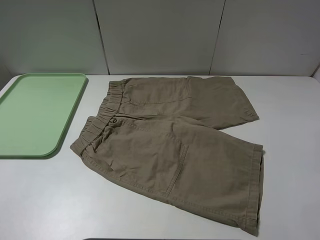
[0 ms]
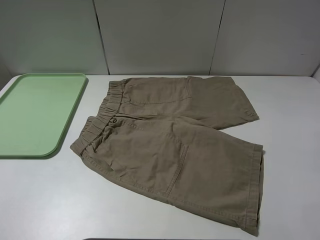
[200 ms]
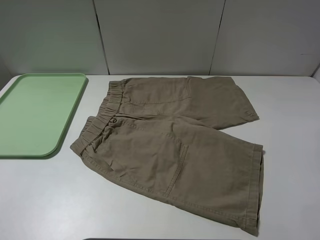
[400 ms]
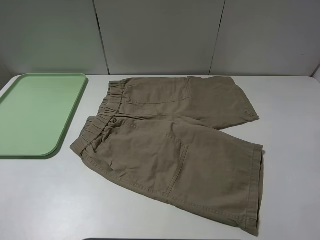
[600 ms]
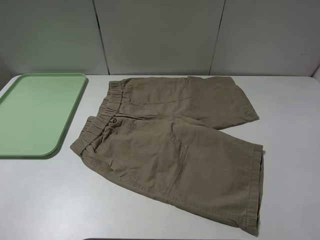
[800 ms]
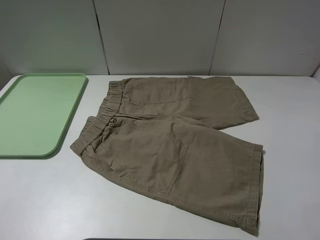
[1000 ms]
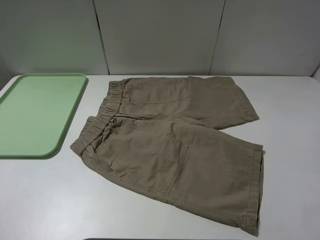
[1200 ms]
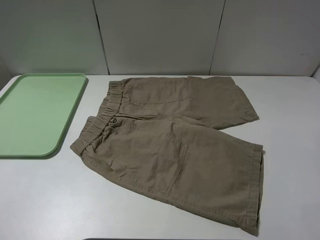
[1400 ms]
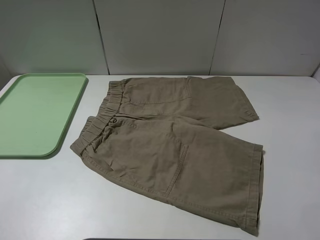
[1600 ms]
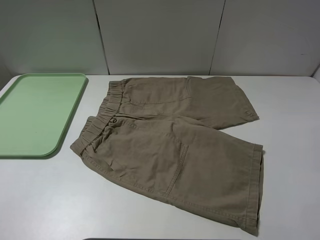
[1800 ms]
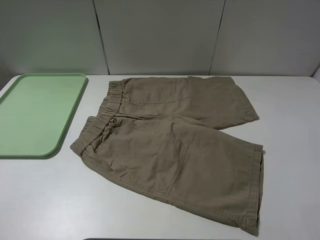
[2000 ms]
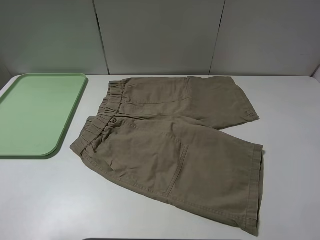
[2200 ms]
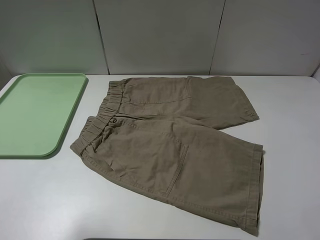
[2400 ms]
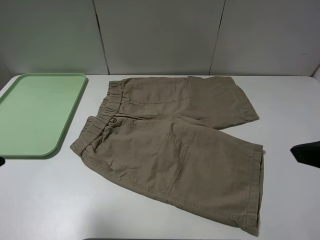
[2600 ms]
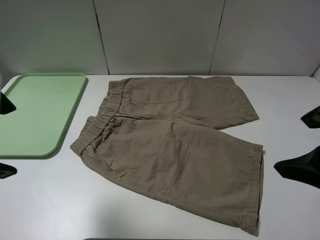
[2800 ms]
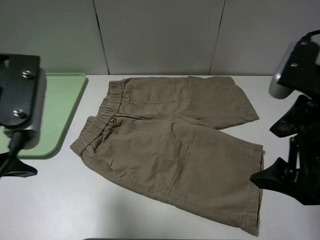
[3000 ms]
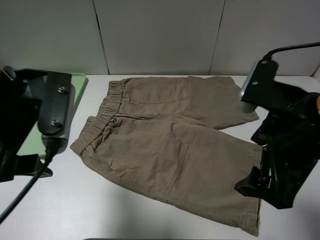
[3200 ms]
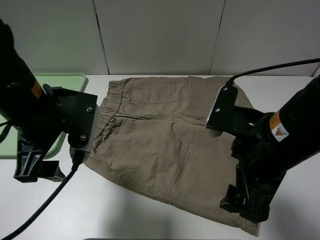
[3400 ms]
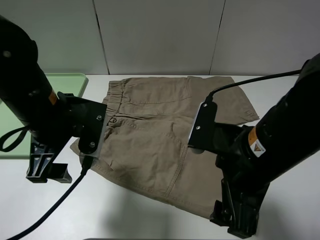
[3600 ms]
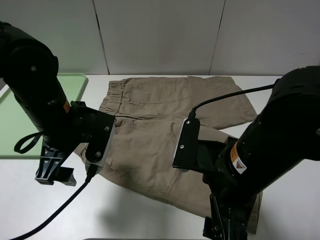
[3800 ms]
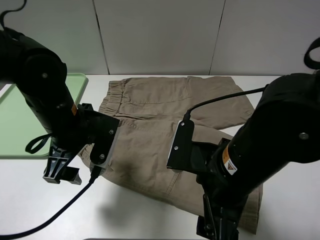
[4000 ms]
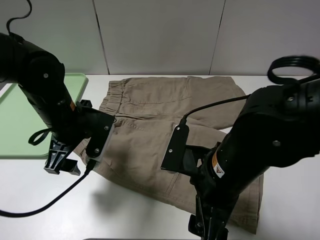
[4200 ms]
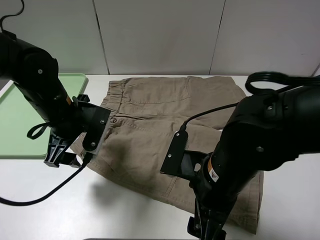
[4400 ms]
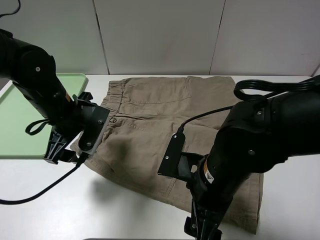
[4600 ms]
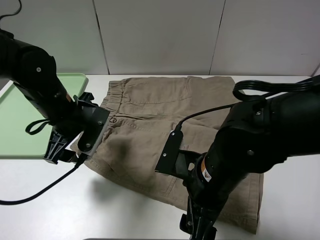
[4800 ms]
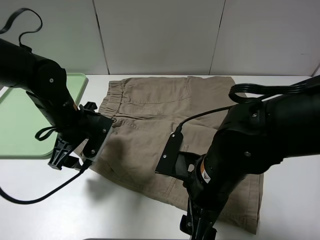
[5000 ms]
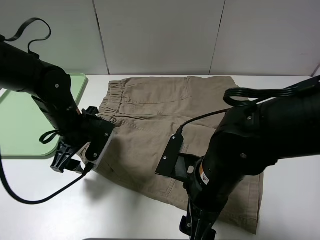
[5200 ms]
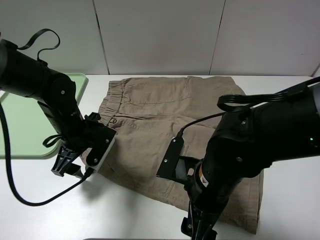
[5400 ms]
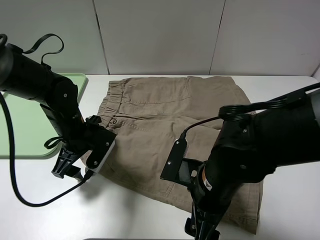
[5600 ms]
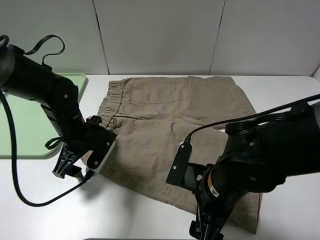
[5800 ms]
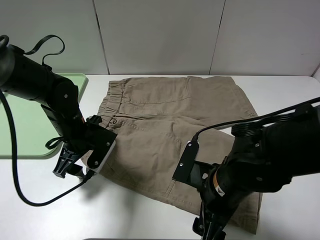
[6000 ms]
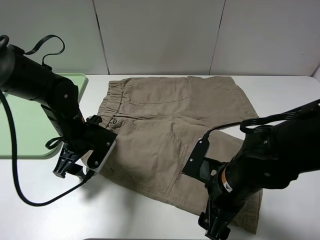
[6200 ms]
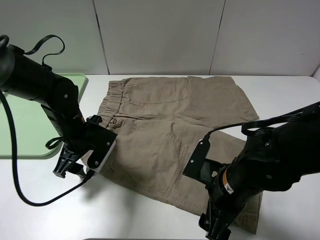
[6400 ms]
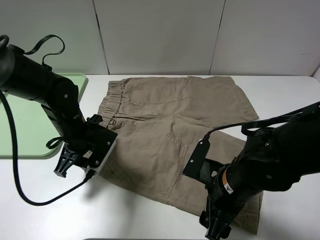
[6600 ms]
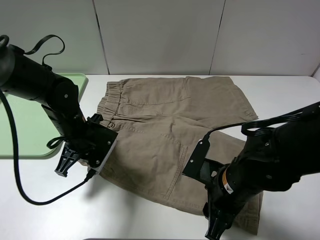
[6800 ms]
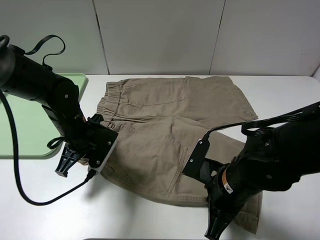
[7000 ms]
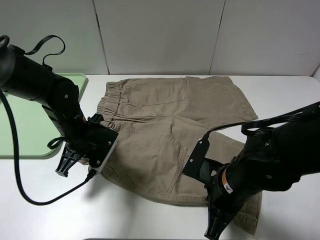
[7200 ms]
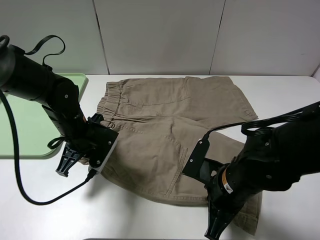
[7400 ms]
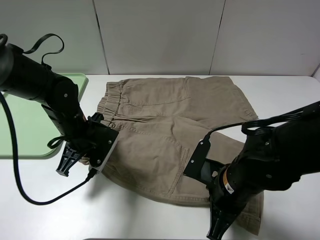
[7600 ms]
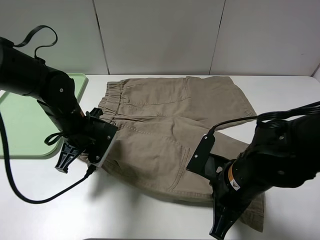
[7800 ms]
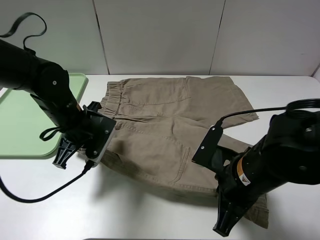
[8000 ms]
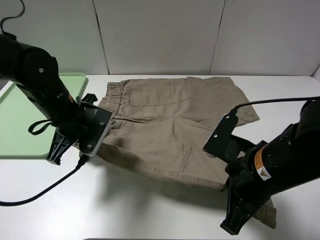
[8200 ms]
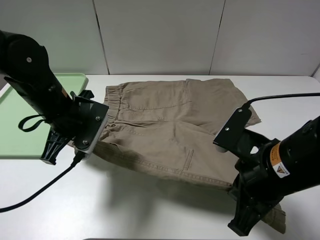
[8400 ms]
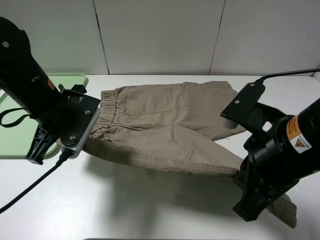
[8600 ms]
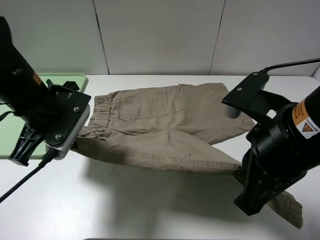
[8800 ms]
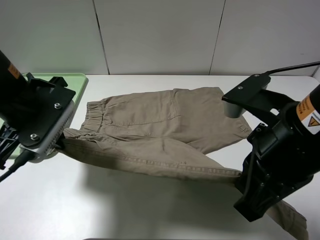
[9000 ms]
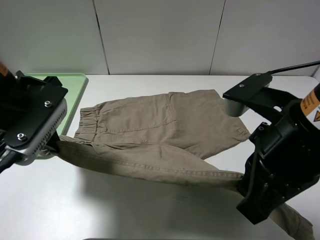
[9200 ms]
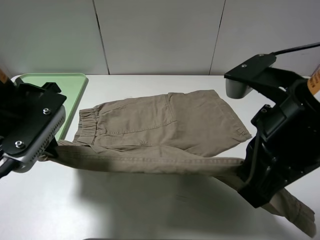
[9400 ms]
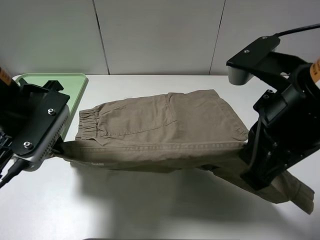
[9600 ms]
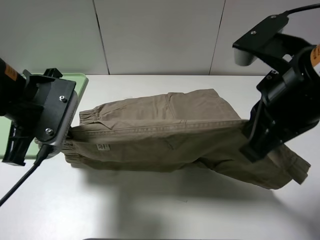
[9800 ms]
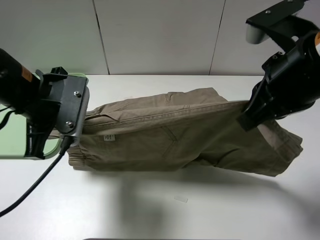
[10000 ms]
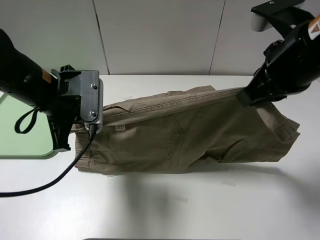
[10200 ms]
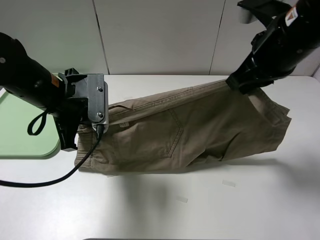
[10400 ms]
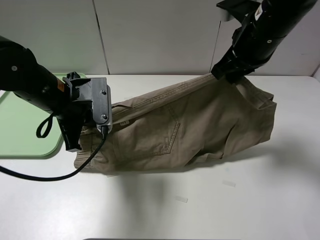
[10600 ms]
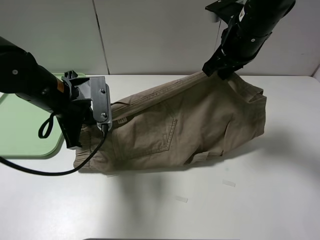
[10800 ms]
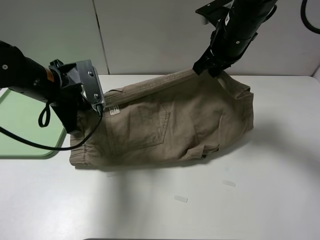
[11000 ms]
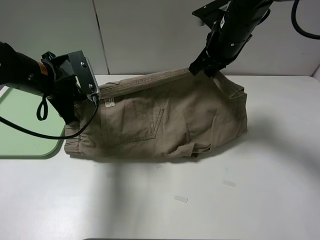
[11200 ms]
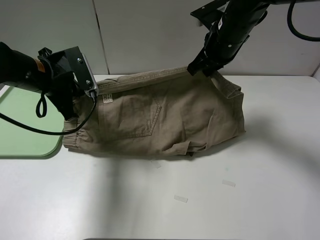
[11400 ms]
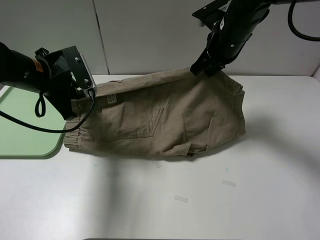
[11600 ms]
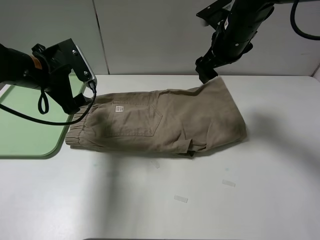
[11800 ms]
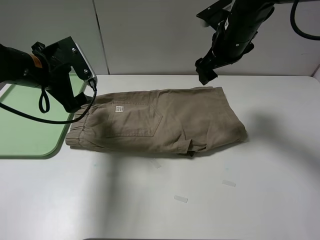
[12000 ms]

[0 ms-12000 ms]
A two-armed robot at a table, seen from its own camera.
Task of the whole recording: fold the khaki jeans in half with two grippers, then fold them in half again, and use the left claw to place the folded fold khaki jeans on the tray.
Step, 0 ms to 7200 ms: Grasp the khaki trousers with the left gripper.
Step, 7400 ms to 11600 ms: Fold the khaki trousers upwards with the left gripper.
0 ms to 1600 ms: The two grippers keep their place.
1600 ms to 3000 ms: The left gripper goes roughly 20 cm forward and to the right. Meanwhile the right gripper shifts approximately 15 cm forward and to the left.
3000 ms to 4400 ms: The left gripper shifts some 15 cm downward and forward. The right gripper moves downward and to the left, some 15 cm.
4400 ms to 6000 ms: The left gripper heads downward, covering about 5 cm. Meanwhile the right gripper moves approximately 5 cm.
6000 ms to 7600 ms: The right gripper closes; the left gripper closes its fingers.
7600 ms to 9000 ms: The left gripper travels upward and backward by approximately 15 cm, while the right gripper travels upward by about 15 cm.
9000 ms to 10400 ms: The left gripper ends up some 5 cm from where it was, while the right gripper shifts about 15 cm forward.
10400 ms to 12000 ms: The right gripper moves forward, roughly 10 cm, and opens its fingers, while the left gripper goes some 5 cm forward, and opens its fingers.

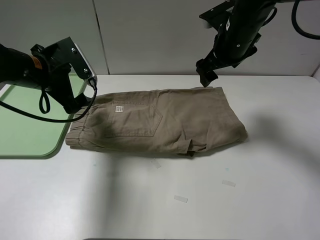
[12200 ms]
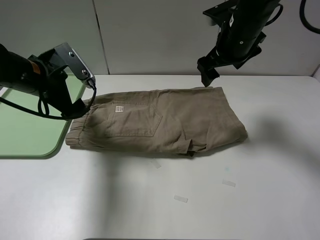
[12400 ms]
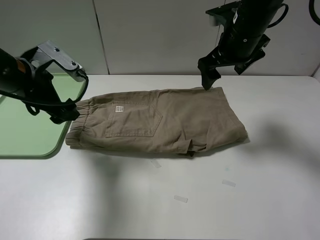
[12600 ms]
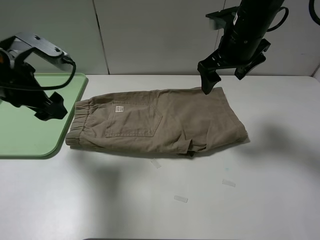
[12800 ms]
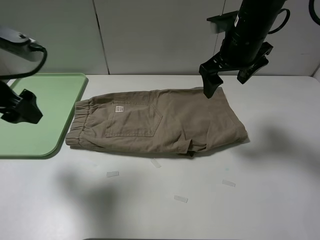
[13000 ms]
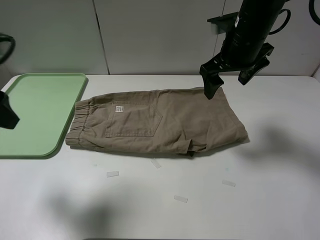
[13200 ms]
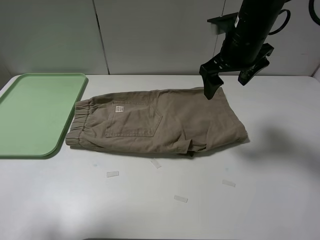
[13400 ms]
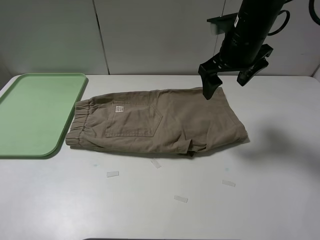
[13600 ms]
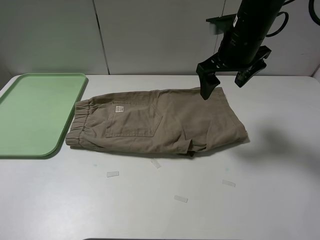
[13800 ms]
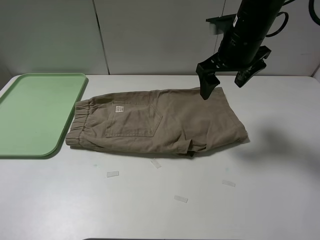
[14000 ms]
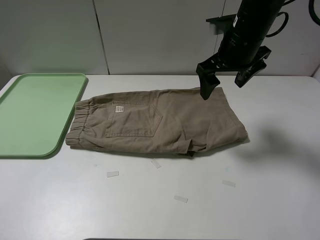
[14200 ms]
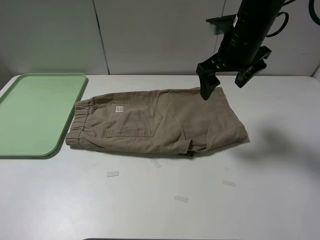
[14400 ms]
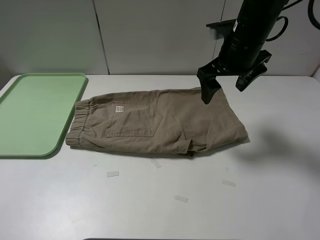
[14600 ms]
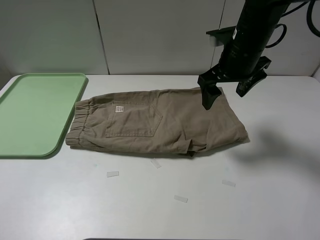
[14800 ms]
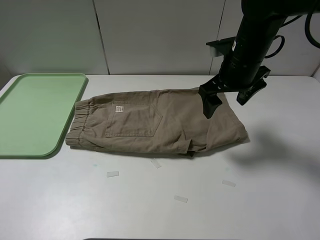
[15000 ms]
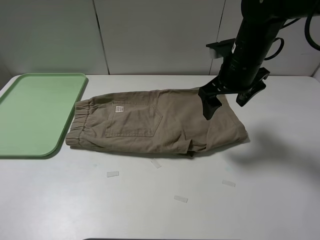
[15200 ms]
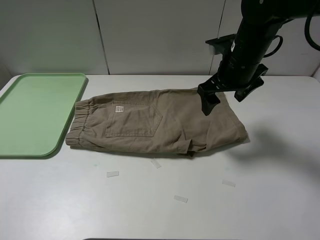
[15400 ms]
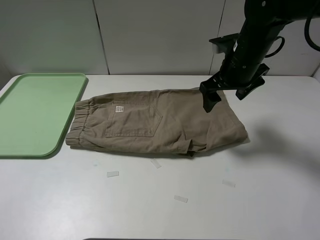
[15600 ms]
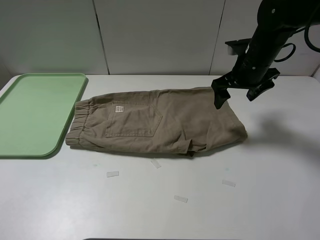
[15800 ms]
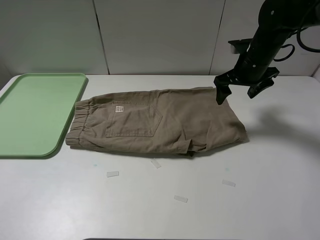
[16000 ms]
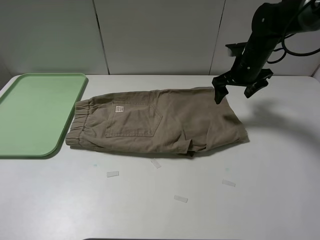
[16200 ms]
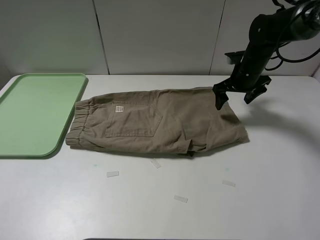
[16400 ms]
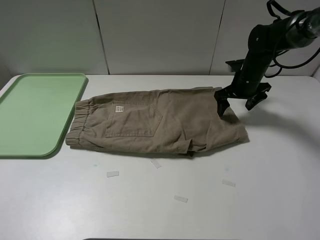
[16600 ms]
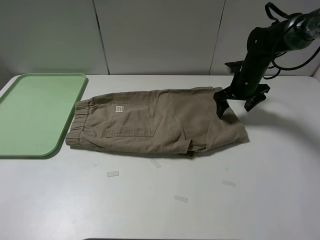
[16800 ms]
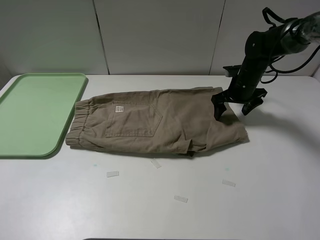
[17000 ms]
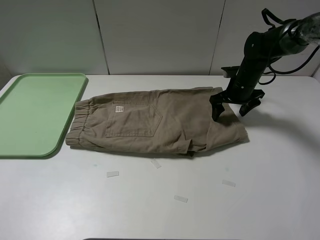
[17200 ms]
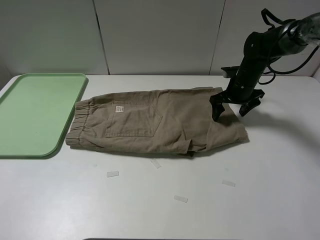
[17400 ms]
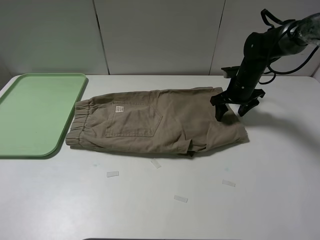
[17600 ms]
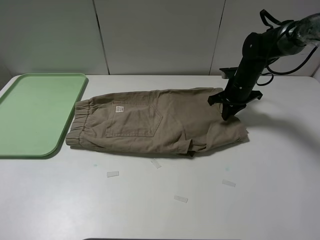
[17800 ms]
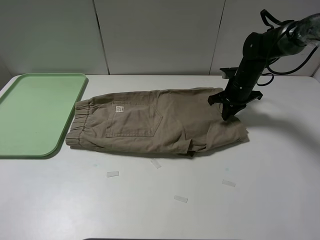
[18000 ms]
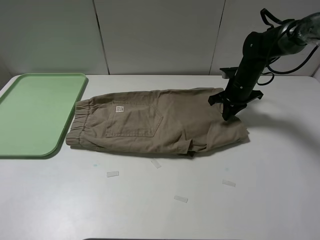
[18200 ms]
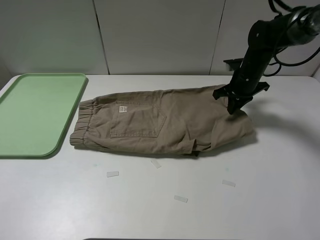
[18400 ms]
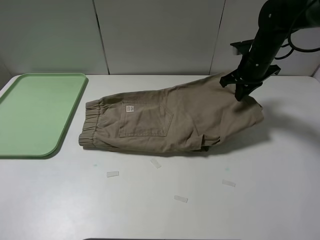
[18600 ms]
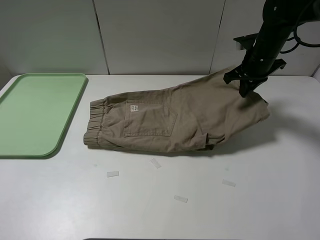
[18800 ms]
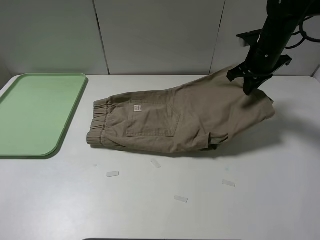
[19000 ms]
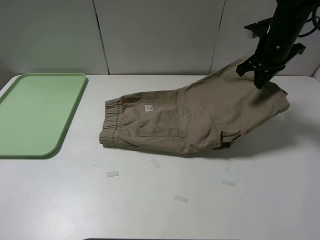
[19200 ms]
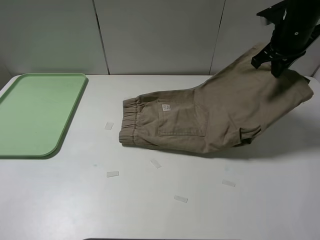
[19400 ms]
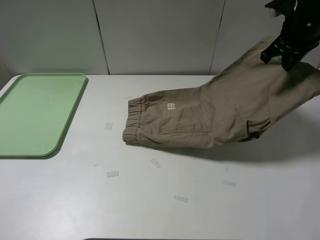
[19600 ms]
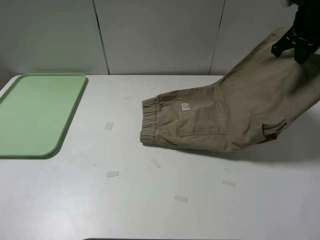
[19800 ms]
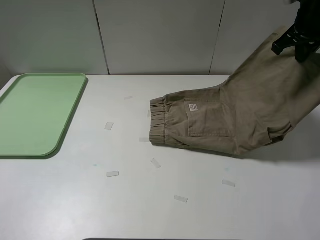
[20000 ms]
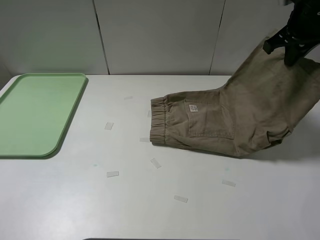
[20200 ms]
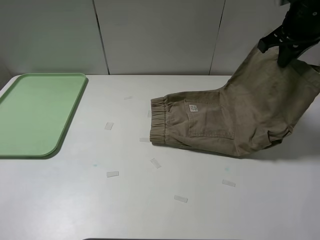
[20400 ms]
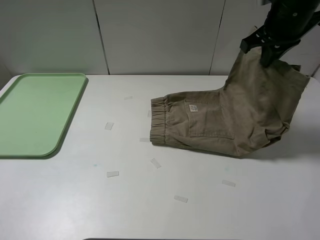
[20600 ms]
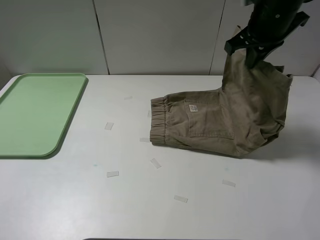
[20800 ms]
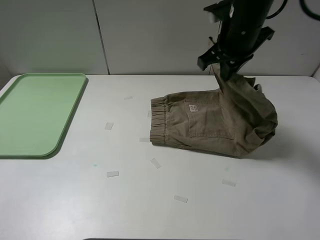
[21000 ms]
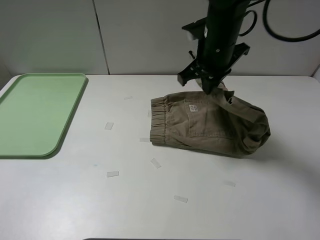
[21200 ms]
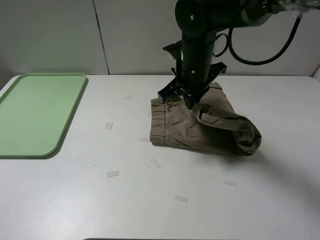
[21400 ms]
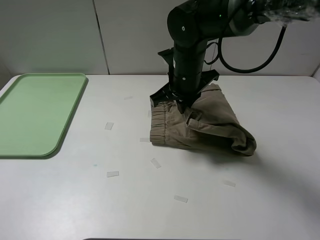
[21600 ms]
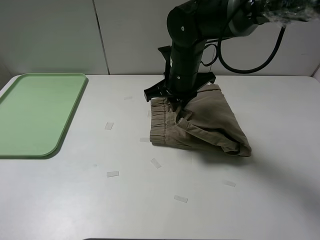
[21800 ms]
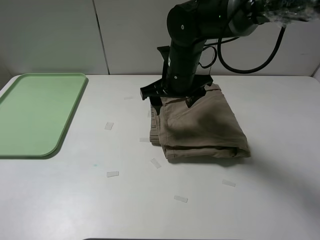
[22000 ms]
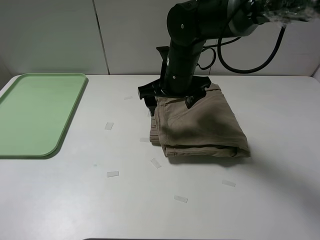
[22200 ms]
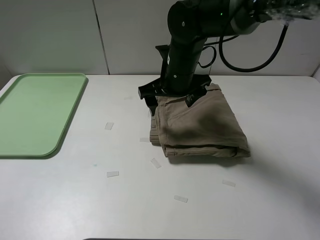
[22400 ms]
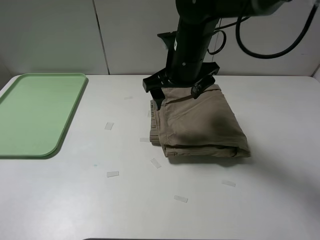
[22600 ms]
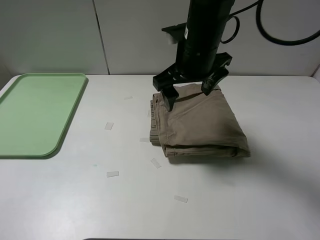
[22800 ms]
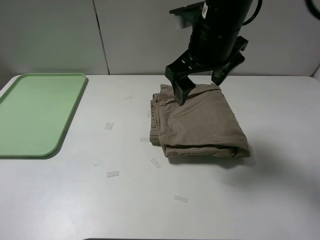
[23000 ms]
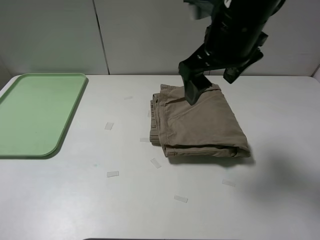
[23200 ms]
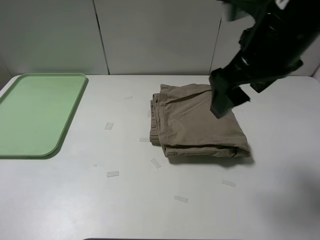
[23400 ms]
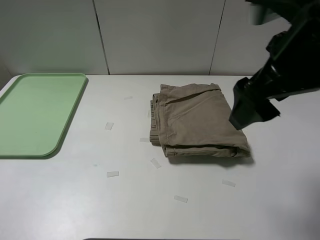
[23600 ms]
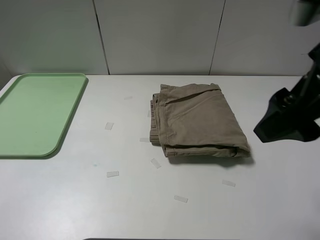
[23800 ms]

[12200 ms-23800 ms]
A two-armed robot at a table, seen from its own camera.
Task of the whole recording: fold the khaki jeans in half with two grippers, then fold them in half again, and use the left claw to place the folded fold khaki jeans on the tray.
Step, 12200 ms to 18200 ms: Grasp the khaki trousers with the right gripper.
Step, 18400 ms to 22200 ms: Fold the khaki trousers from right to left with the right gripper.
12200 ms to 13600 ms: The left gripper moves backward and upward, about 25 cm.
13600 ms to 15000 ms: The left gripper moves downward and backward, roughly 10 cm.
15000 ms to 16600 ms: The right gripper goes some 15 cm forward, downward and to the right.
16600 ms to 18000 ms: The right gripper closes.
18000 ms to 19400 ms: The right gripper heads upward, covering some 15 cm.
19400 ms to 21000 ms: The right gripper goes roughly 15 cm to the left.
21000 ms to 22400 ms: The right gripper travels to the left and downward by roughly 10 cm, and opens up.
22400 ms to 23800 ms: The right gripper heads backward, to the right and upward, covering approximately 30 cm.
